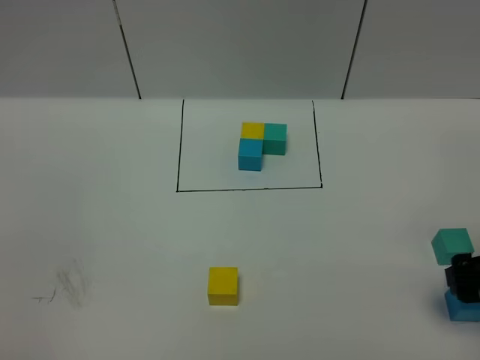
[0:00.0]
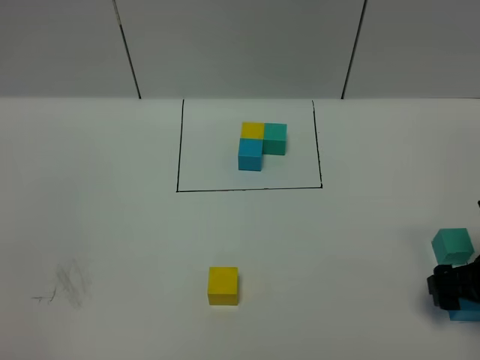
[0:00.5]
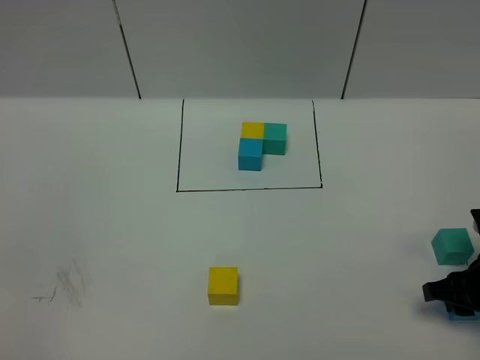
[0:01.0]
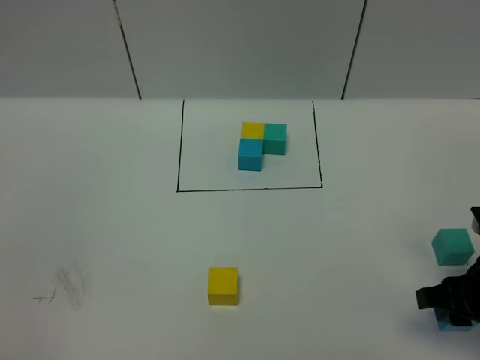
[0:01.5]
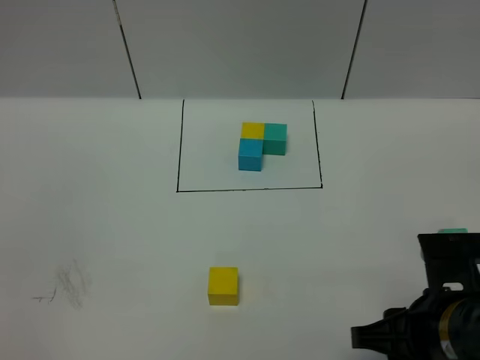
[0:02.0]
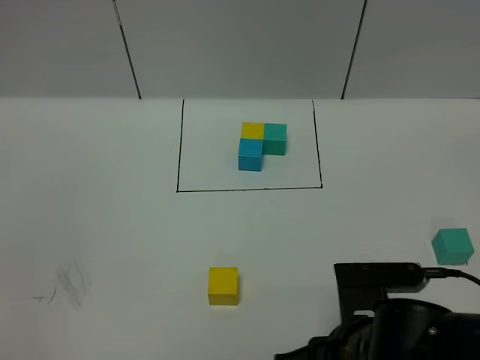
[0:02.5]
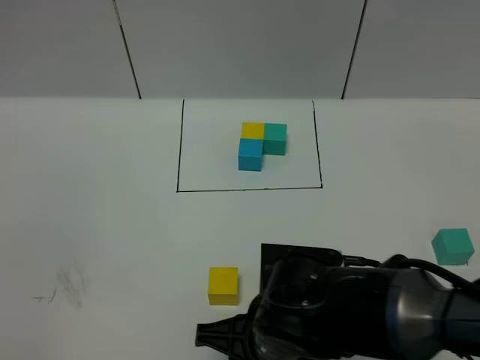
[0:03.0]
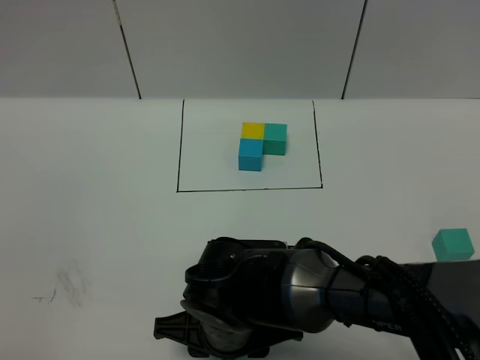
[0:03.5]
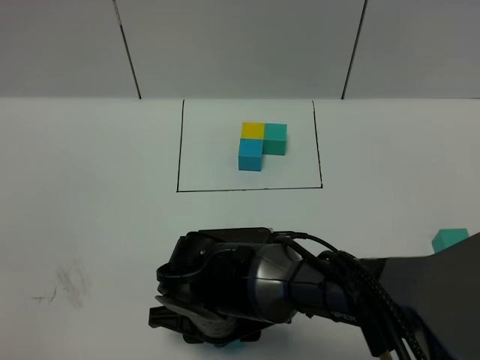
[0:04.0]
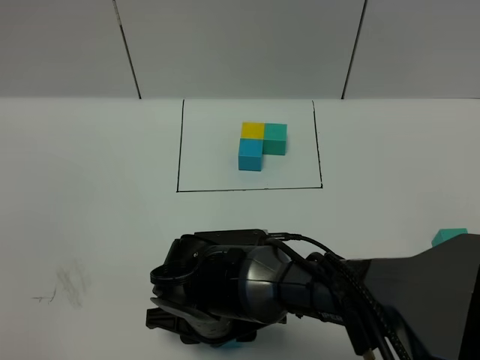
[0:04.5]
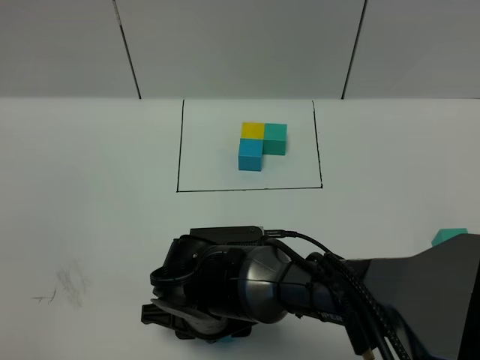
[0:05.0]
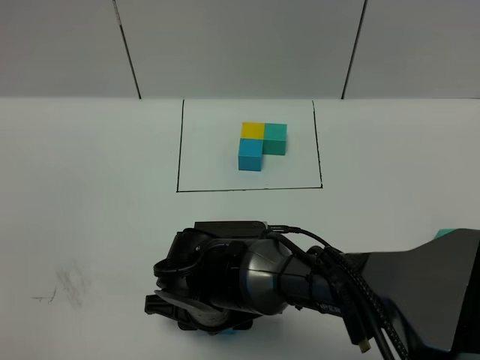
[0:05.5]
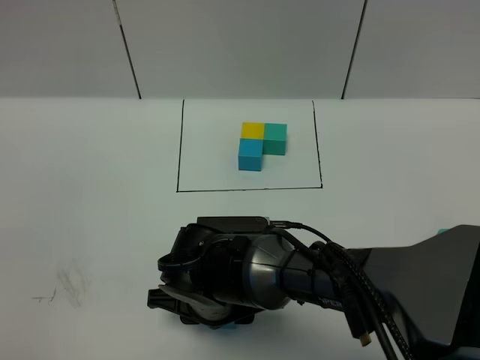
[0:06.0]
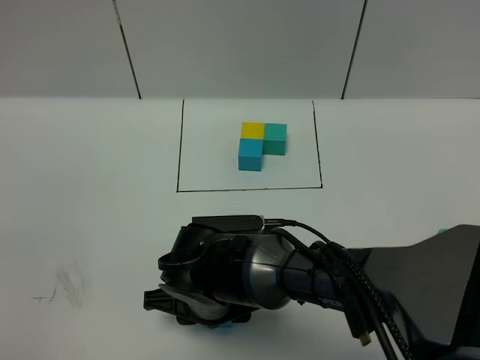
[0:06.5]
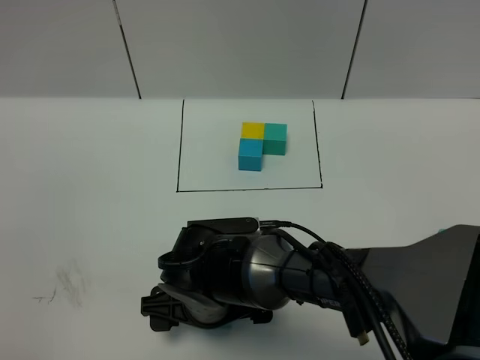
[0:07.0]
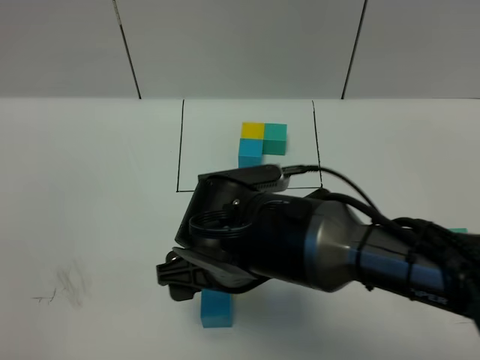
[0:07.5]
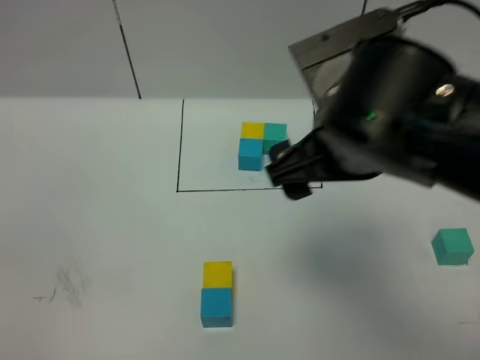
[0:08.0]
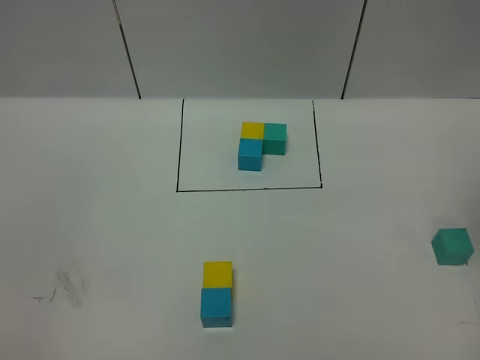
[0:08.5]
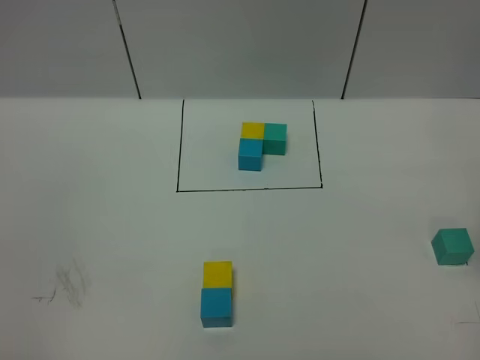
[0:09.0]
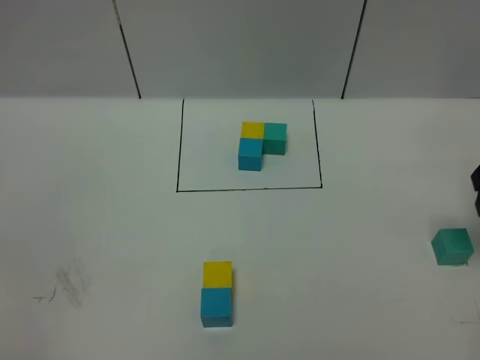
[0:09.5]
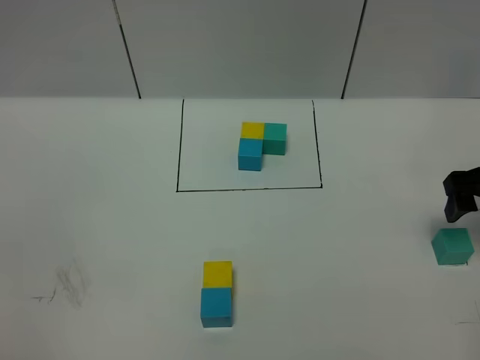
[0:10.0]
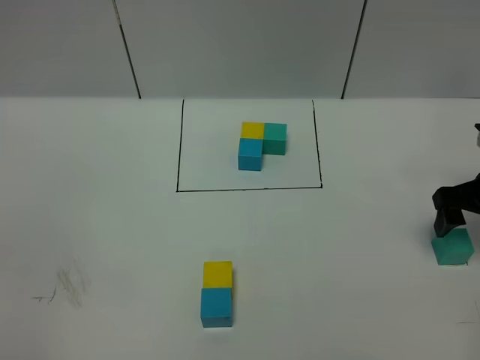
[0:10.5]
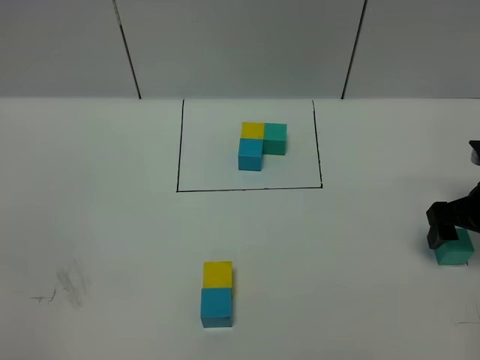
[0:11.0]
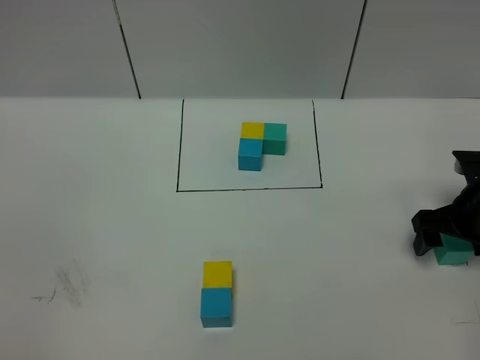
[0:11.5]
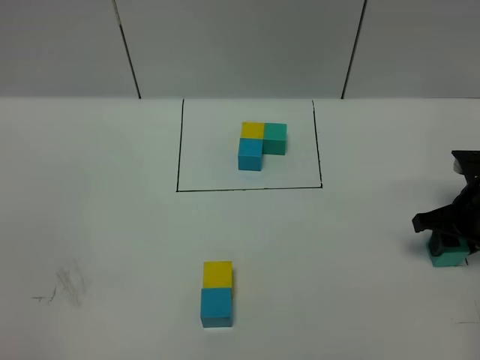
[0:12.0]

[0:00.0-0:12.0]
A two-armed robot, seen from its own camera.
Task of the whole recording: According to the building block template in front, assemble the scattered blocks together.
Step, 0:00.0 to 0:07.0: Put the blue cube in the front of the yellow cube.
0:00.0 to 0:02.0: The right gripper heads to the left and backward, covering some 15 cm, and closes its fingers.
0:02.0 to 0:04.0: The right gripper is displaced to the left by about 20 cm.
0:04.0 to 0:06.0: The grippers move only a little.
0:06.0 to 0:08.0: The right gripper is displaced upward and to the right by about 25 cm, and opens.
0:08.0 to 0:10.0: The right gripper moves to the right, downward and forward, approximately 30 cm.
0:10.0 to 0:12.0: The right gripper travels downward by approximately 5 cm, and closes up.

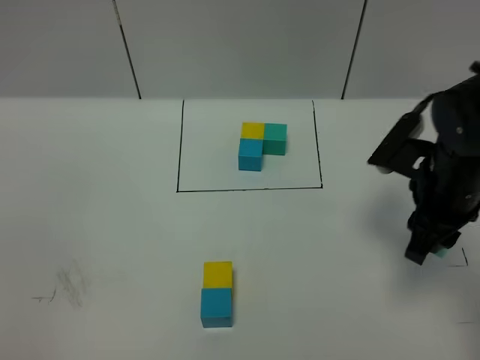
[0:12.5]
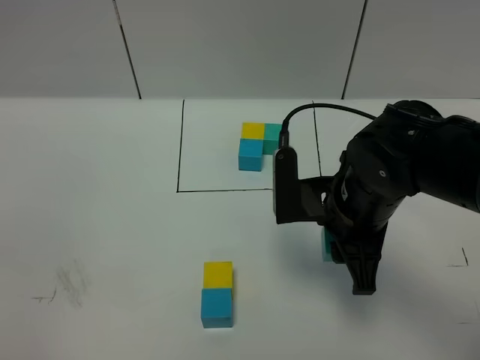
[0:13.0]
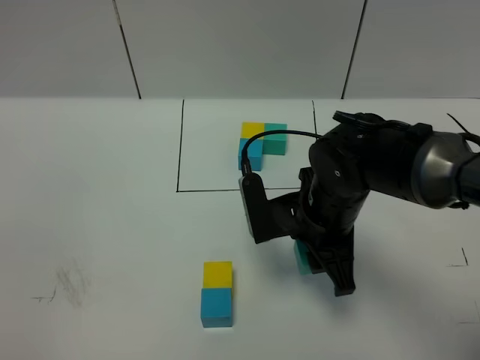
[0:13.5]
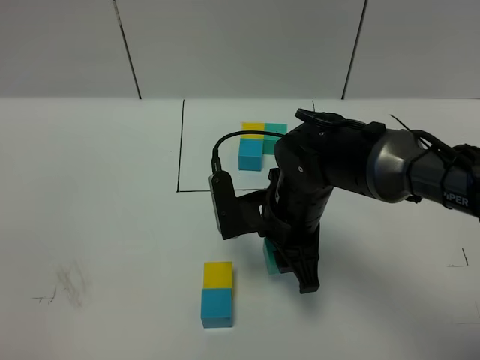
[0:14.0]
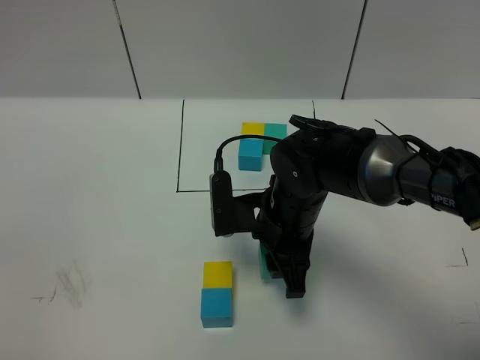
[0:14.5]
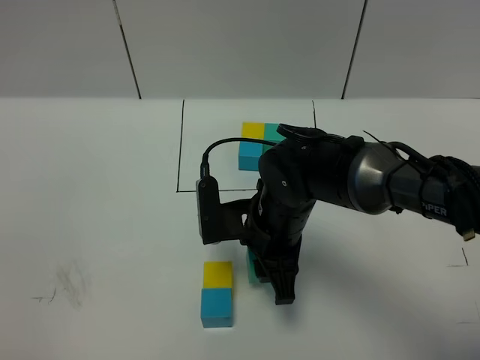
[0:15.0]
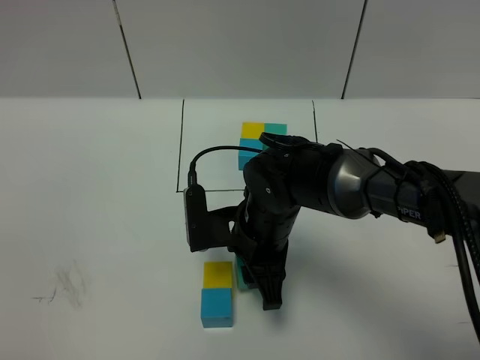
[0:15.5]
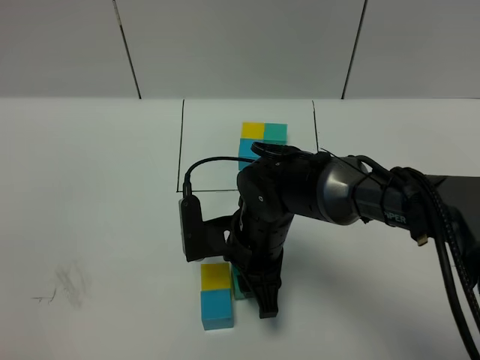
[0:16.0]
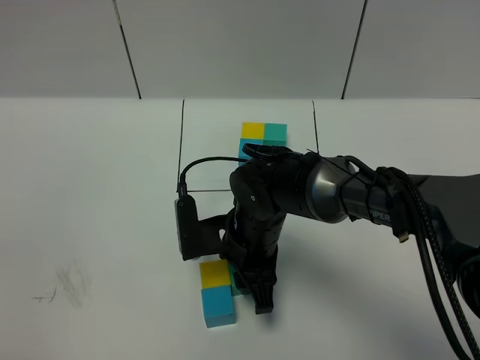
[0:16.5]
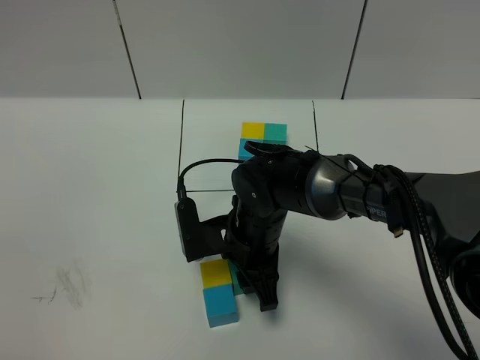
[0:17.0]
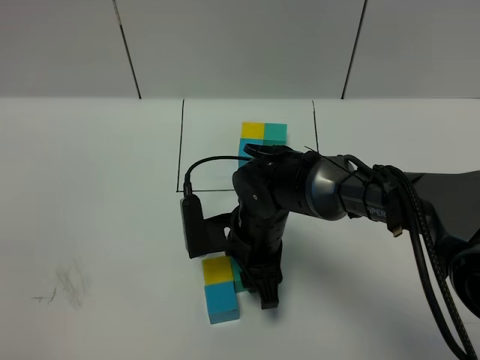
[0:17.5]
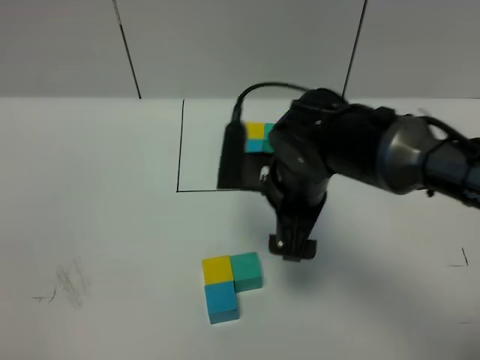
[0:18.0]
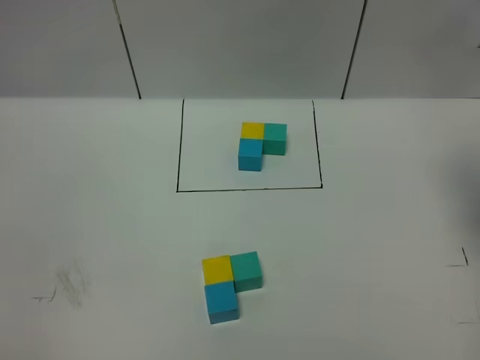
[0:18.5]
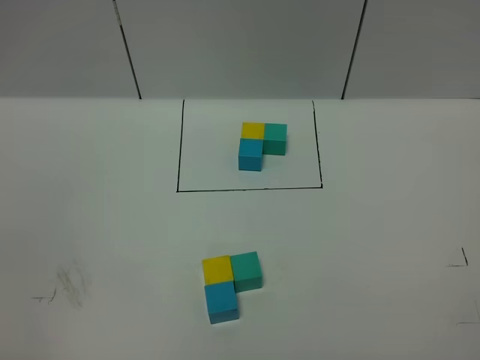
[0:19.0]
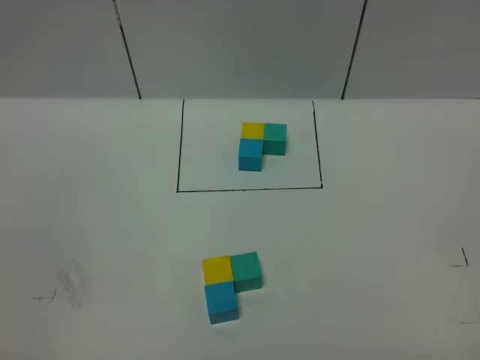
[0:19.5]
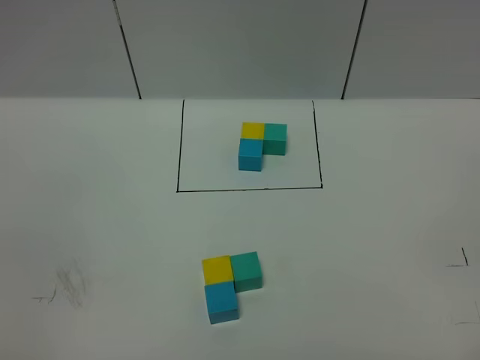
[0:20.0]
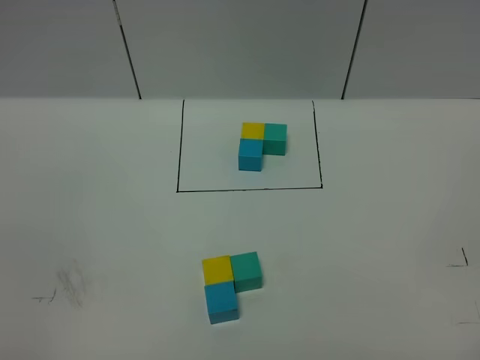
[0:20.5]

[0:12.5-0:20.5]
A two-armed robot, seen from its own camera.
Task of the whole recording: According to the building block template in front, assemble the scattered blocks together.
Step, 0:12.5 to 0:17.5: Put the green cube on the right of the yellow cube.
0:12.5 to 0:14.5: The right gripper goes some 15 cm to the left.
0:14.5 to 0:16.5: The right gripper moves some 5 cm.
0:16.5 to 0:18.5: The right gripper moves to the right and upward, approximately 35 cm, and opens up.

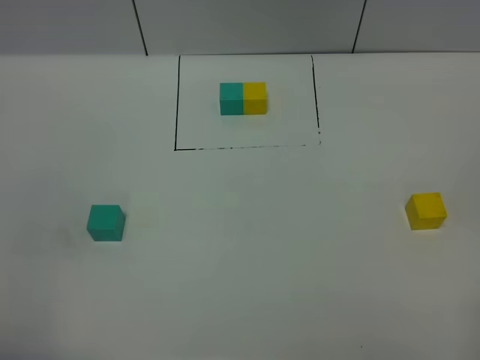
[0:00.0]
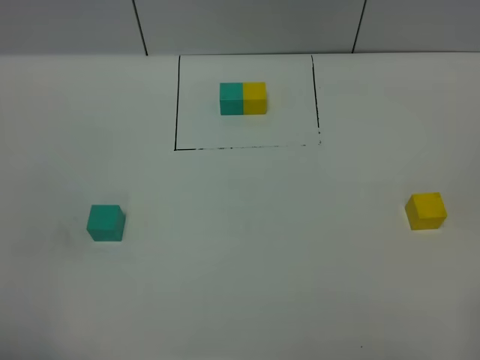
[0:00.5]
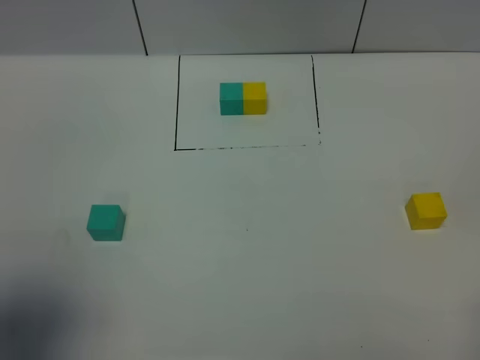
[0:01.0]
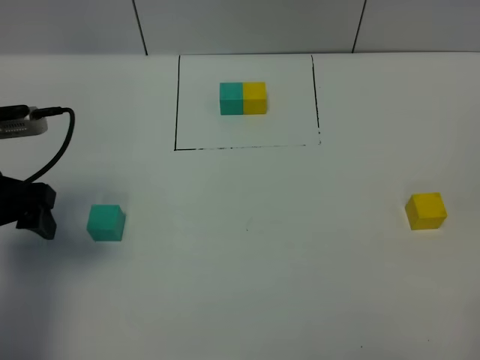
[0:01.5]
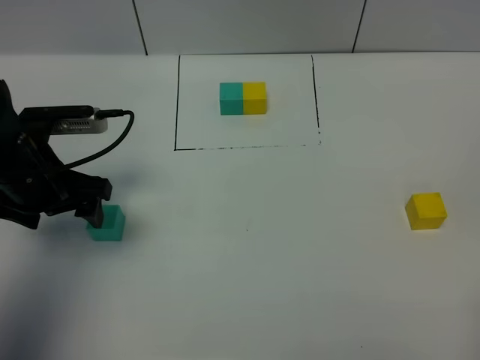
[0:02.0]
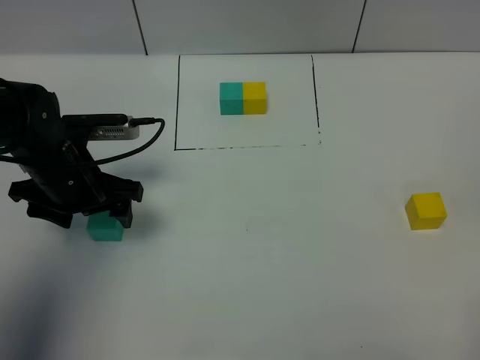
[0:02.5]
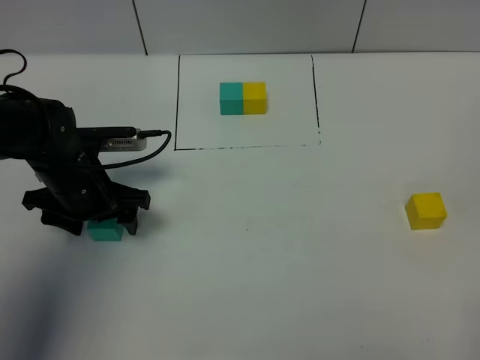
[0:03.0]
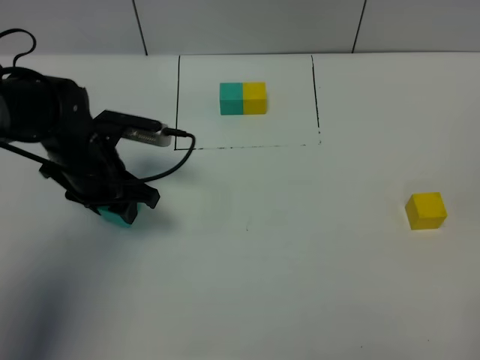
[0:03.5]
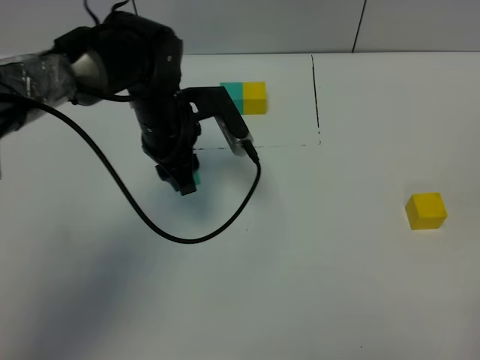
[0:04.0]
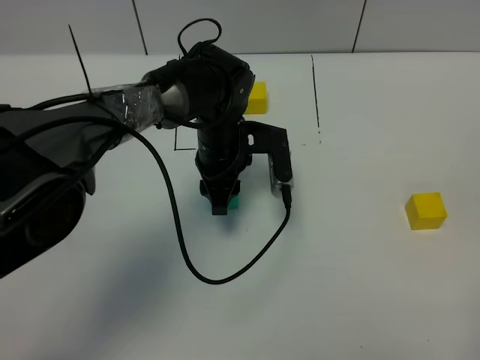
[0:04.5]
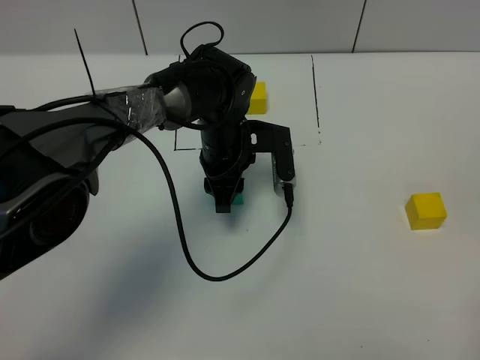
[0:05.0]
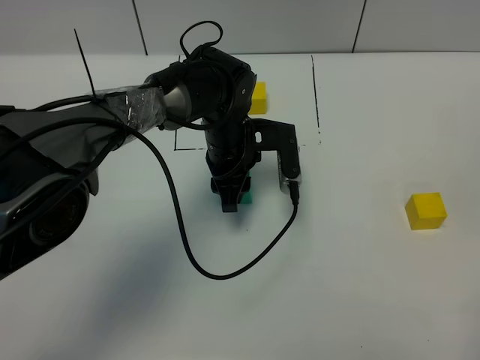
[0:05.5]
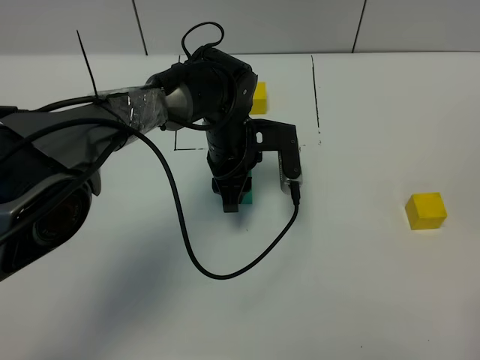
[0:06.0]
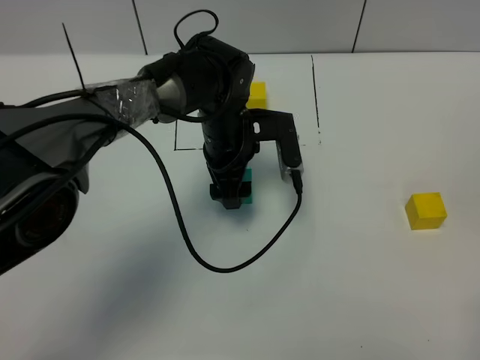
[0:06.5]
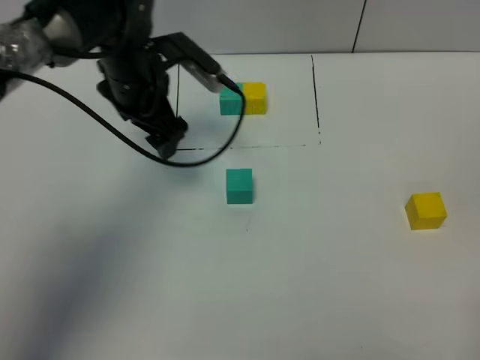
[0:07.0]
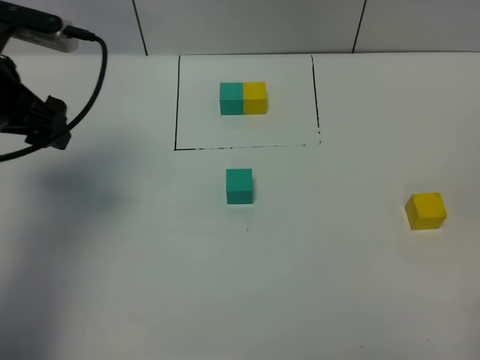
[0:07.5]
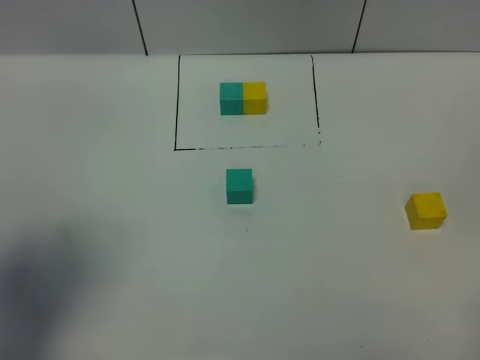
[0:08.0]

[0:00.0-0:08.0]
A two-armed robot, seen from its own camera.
Task of the whole recording: According to the building block template in front, assemble the scattered blocks together.
Step, 0:01.5 to 0:06.0: Put the green cube in the center of the table.
0:00.0 to 0:02.0: The left gripper moves forward, approximately 30 cm.
0:02.0 to 0:04.0: The left gripper is displaced to the right and forward by approximately 20 cm, and closes its fingers.
0:04.0 to 0:06.0: The left gripper moves to the right and downward, roughly 10 cm.
0:06.0 to 0:08.0: The left gripper shifts some 40 cm to the left, backward and upward, and opens its fingers.
